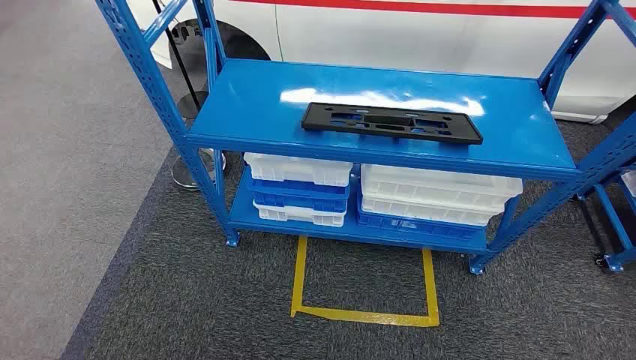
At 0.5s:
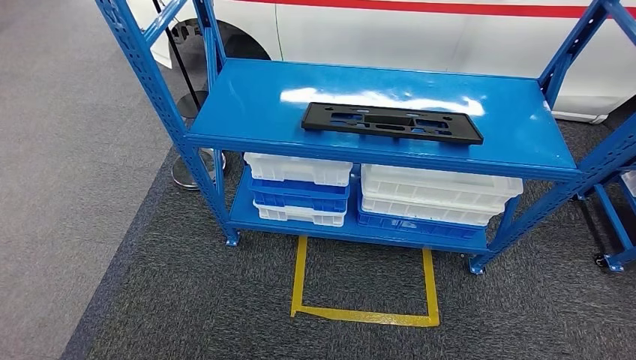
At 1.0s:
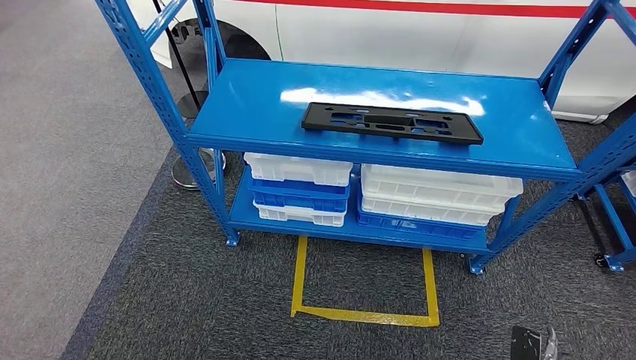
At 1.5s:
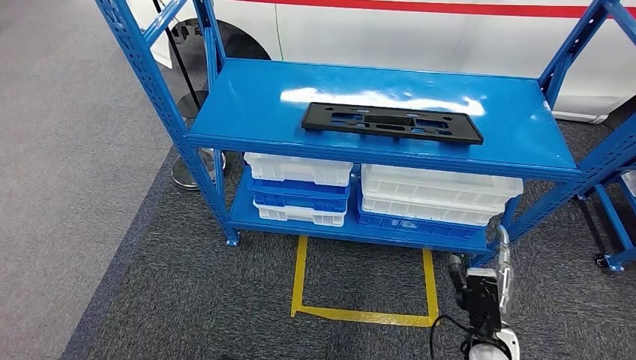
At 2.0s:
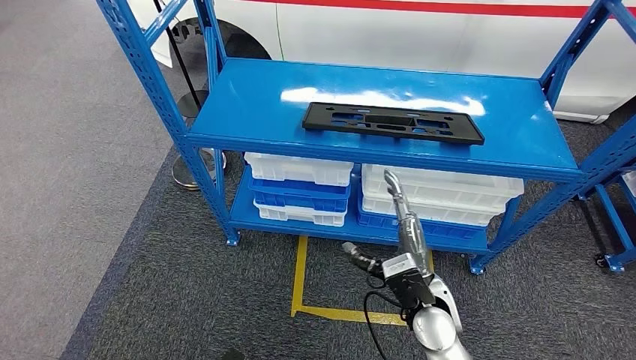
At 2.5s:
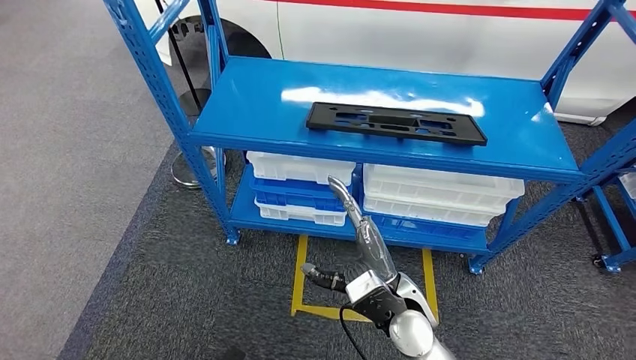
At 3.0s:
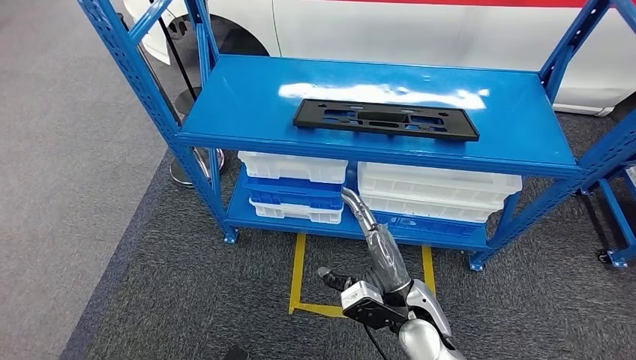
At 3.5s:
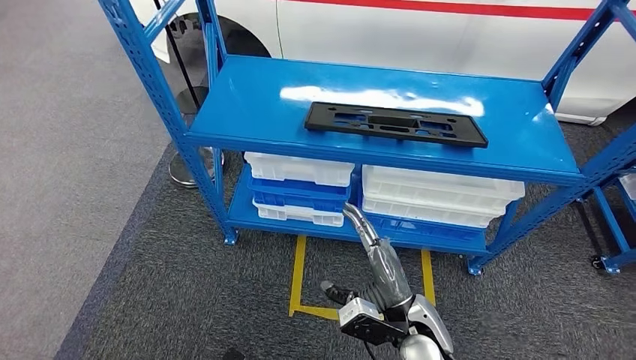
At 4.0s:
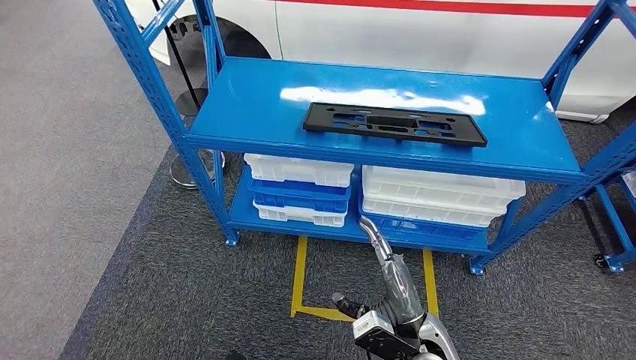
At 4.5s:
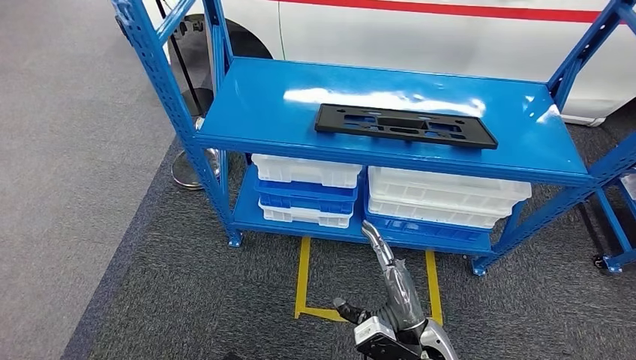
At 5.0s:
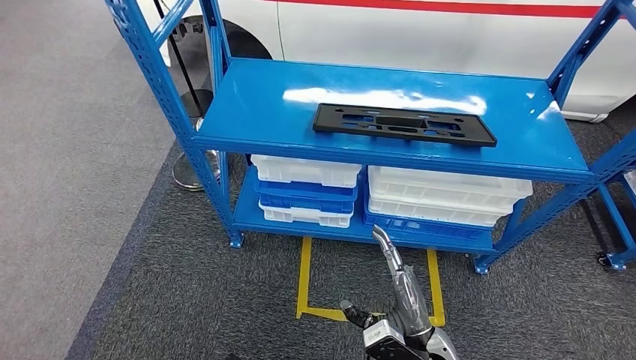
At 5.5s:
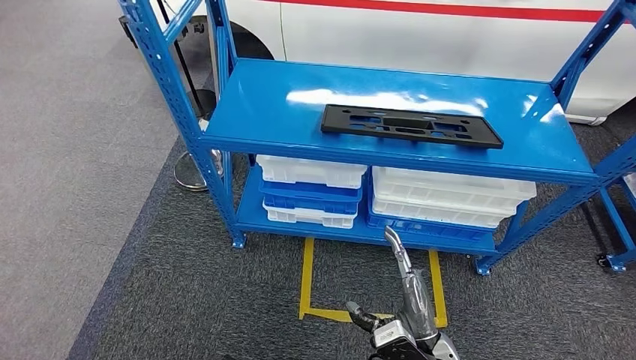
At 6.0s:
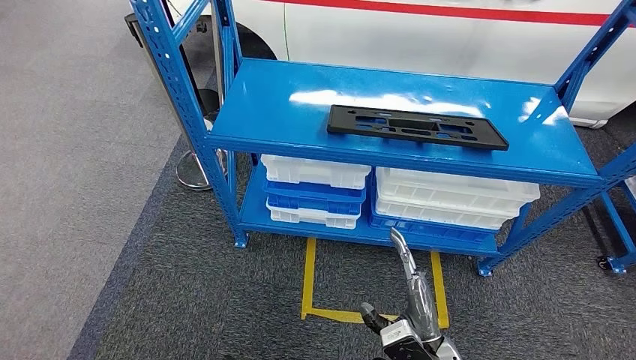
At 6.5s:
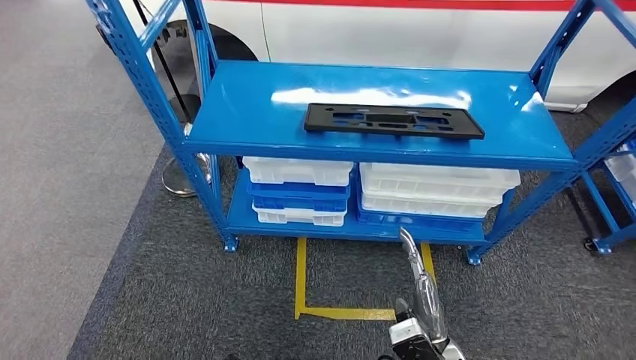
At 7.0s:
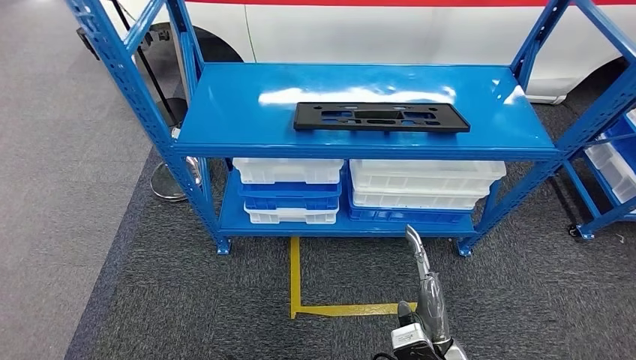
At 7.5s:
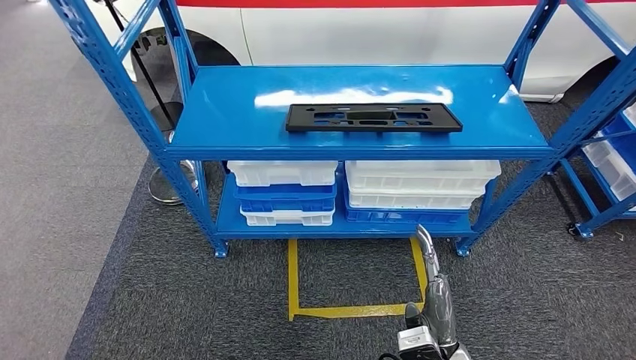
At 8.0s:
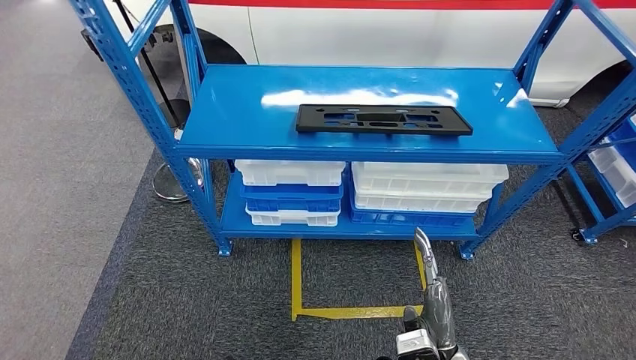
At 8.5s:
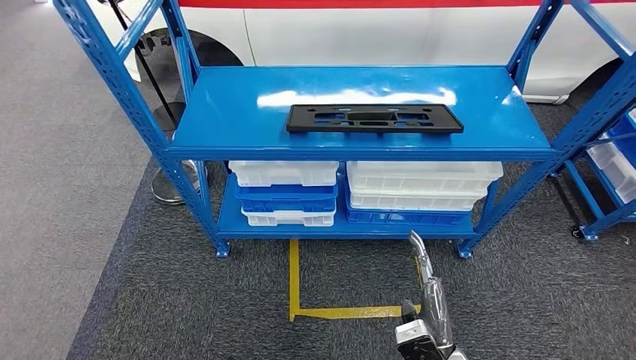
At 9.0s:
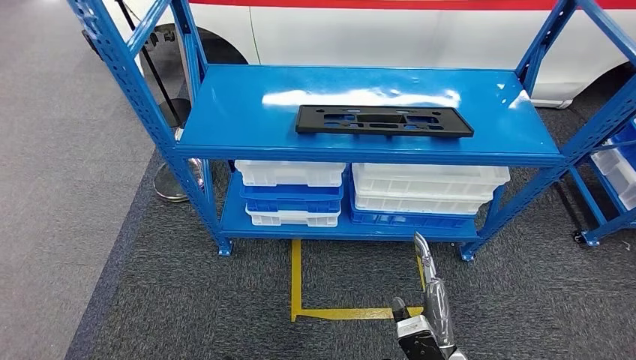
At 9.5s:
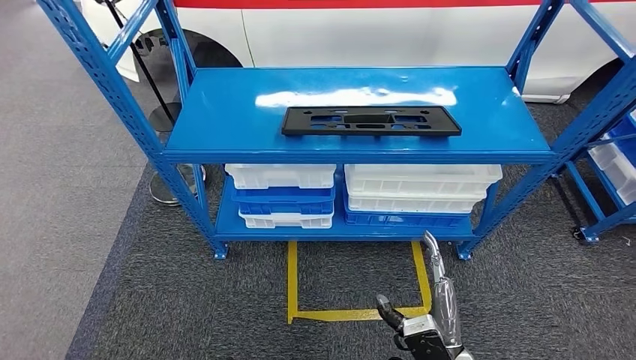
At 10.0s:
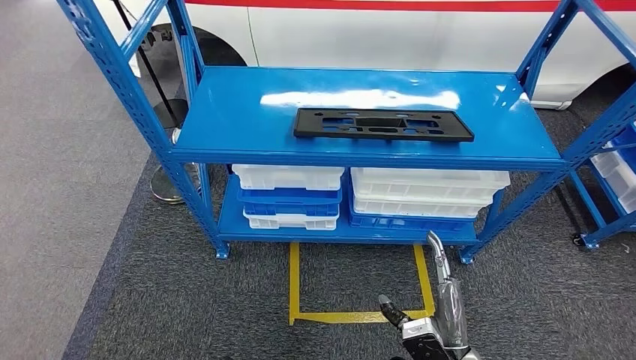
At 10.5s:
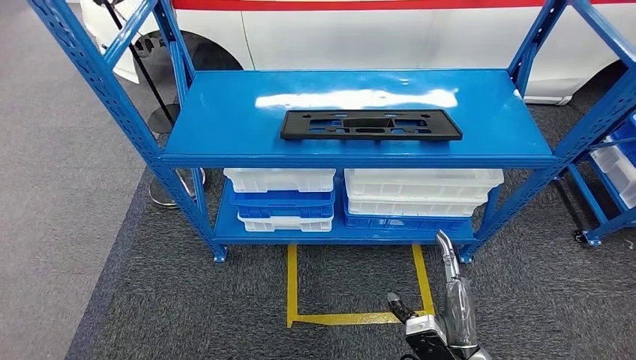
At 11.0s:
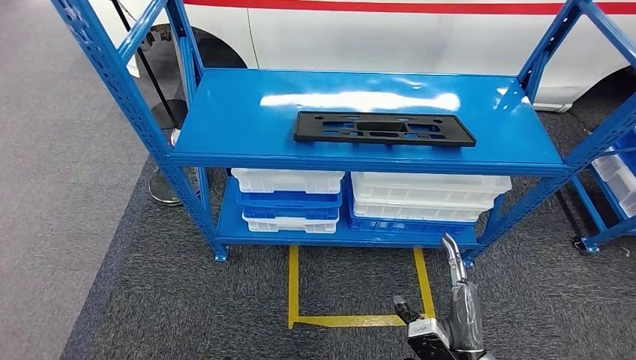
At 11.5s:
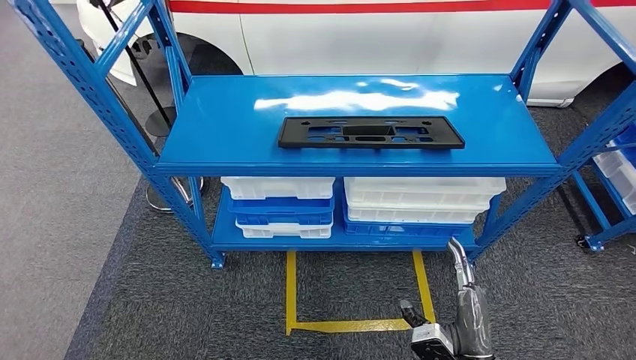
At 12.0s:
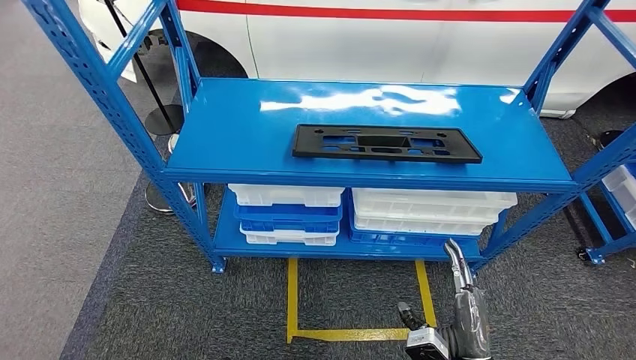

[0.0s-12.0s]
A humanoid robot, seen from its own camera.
2.0s to 4.0s: The right hand moves backward, about 5 cm.
8.0s to 10.0s: There are only small adjustments of the hands.

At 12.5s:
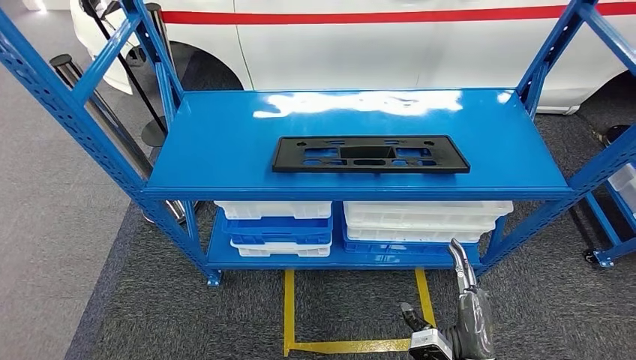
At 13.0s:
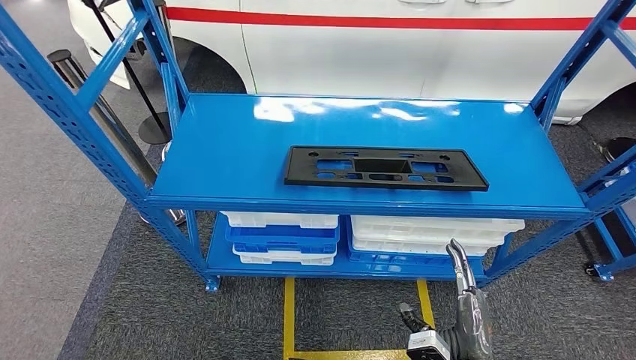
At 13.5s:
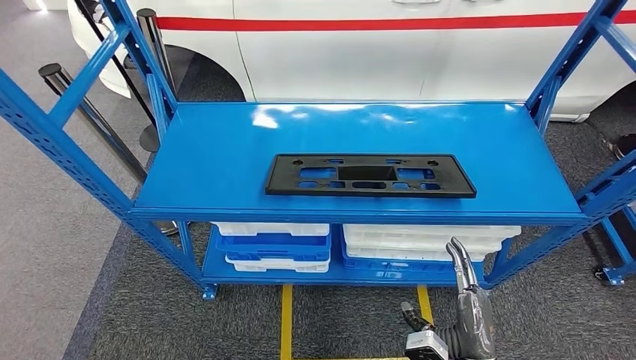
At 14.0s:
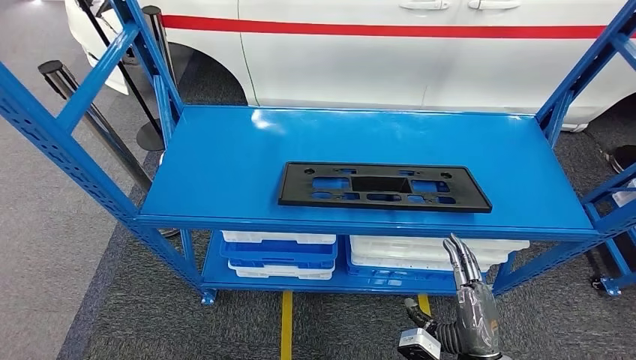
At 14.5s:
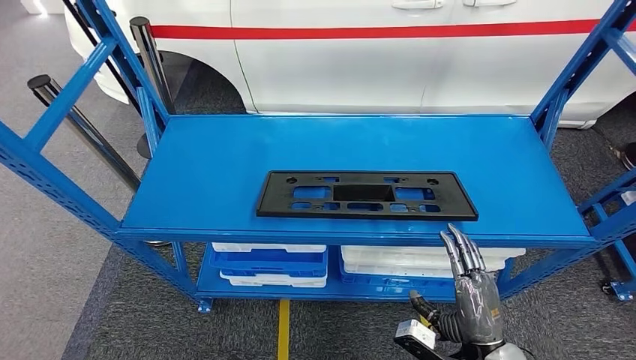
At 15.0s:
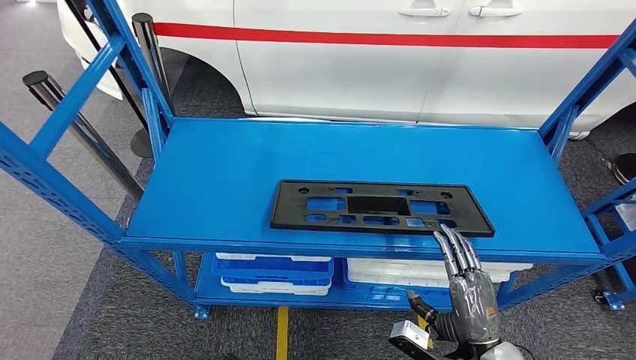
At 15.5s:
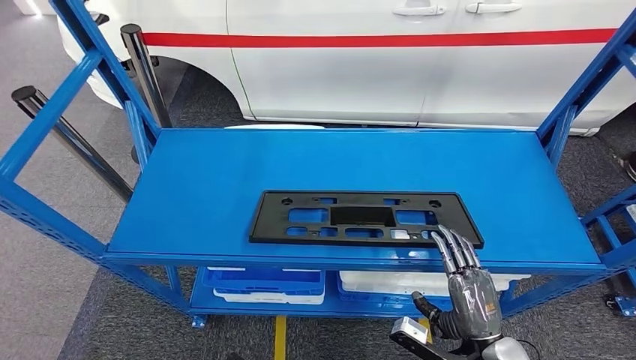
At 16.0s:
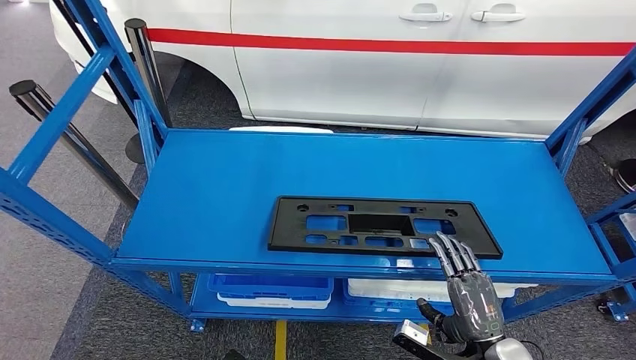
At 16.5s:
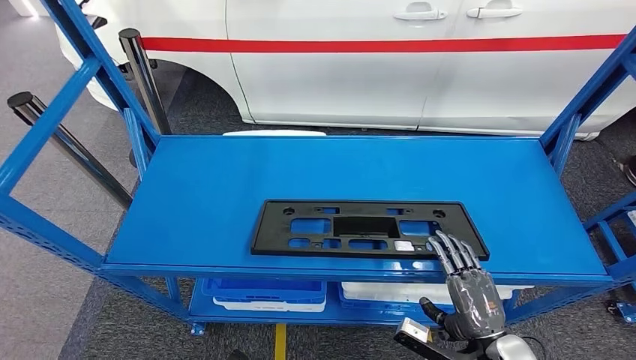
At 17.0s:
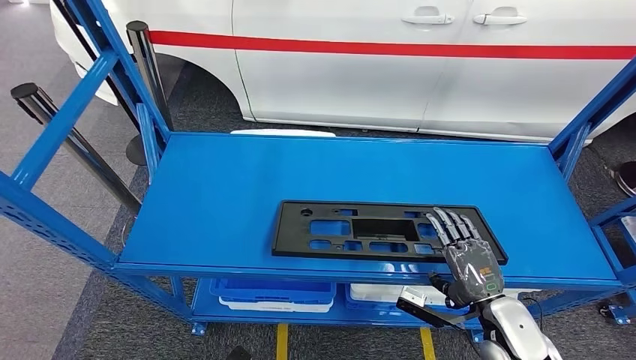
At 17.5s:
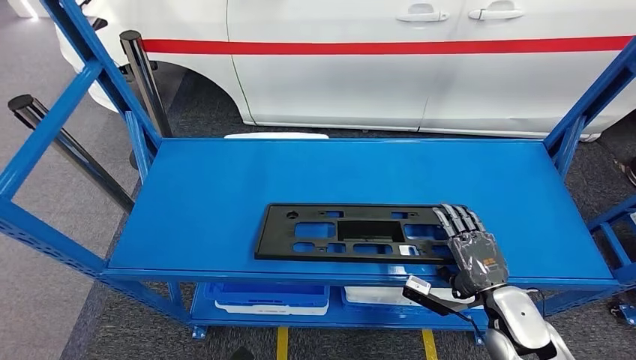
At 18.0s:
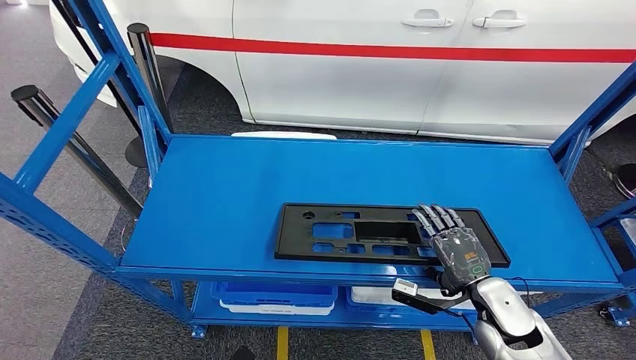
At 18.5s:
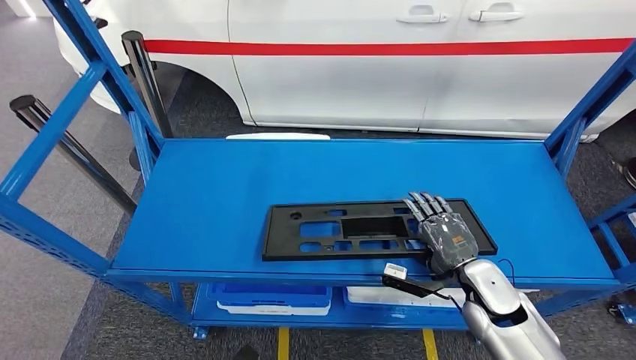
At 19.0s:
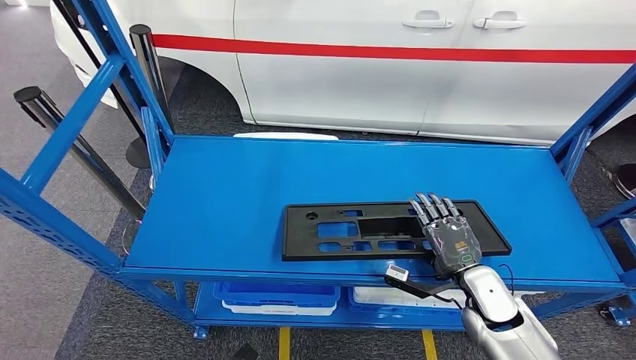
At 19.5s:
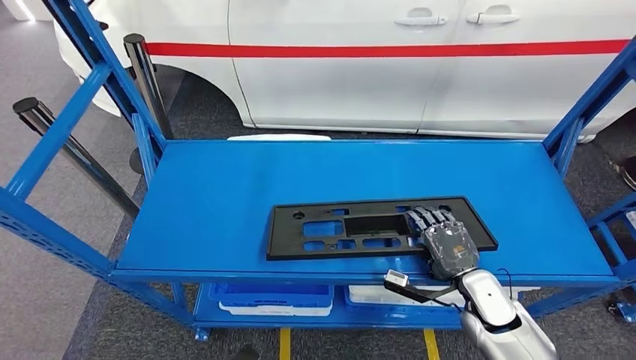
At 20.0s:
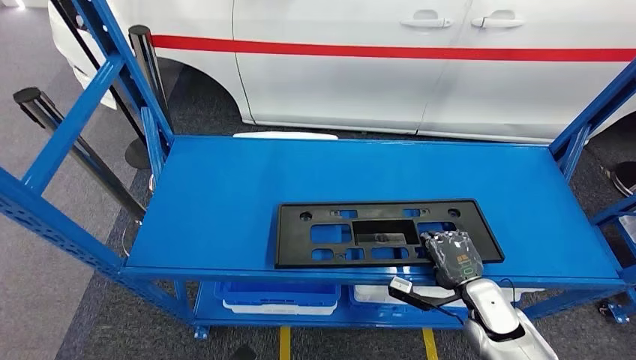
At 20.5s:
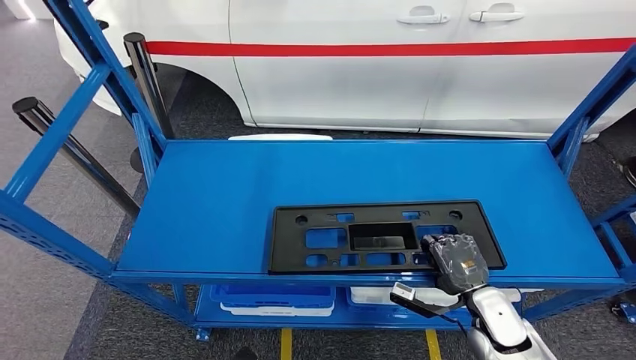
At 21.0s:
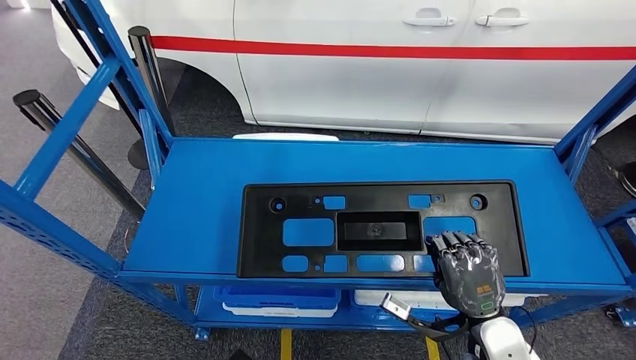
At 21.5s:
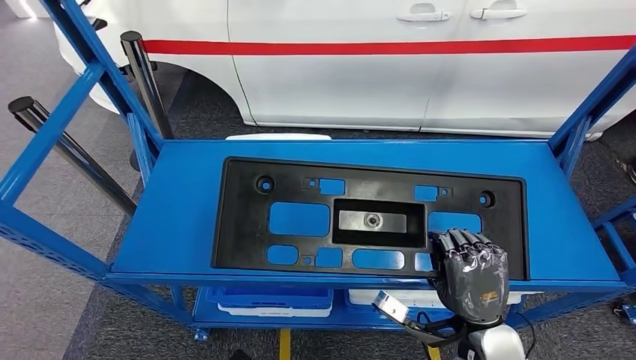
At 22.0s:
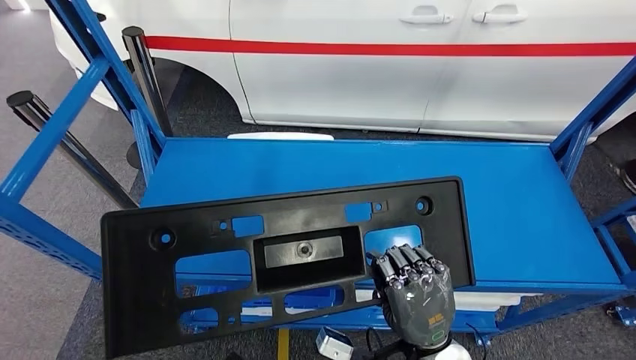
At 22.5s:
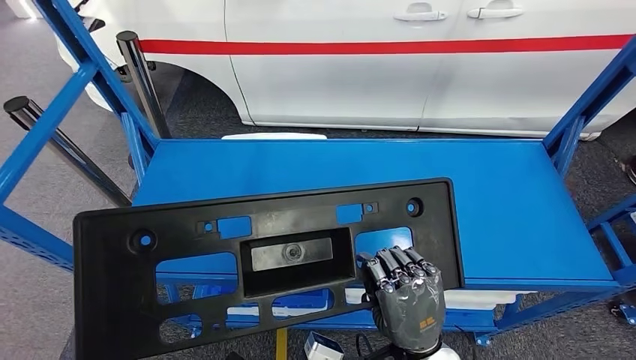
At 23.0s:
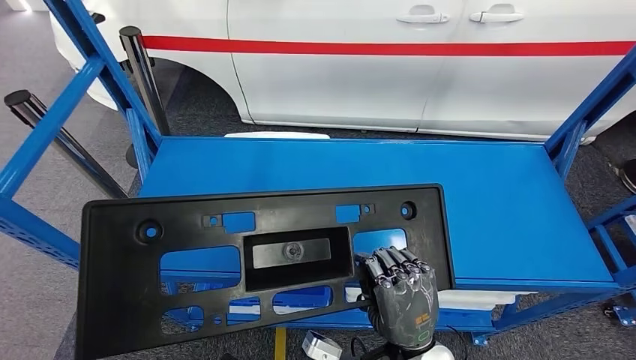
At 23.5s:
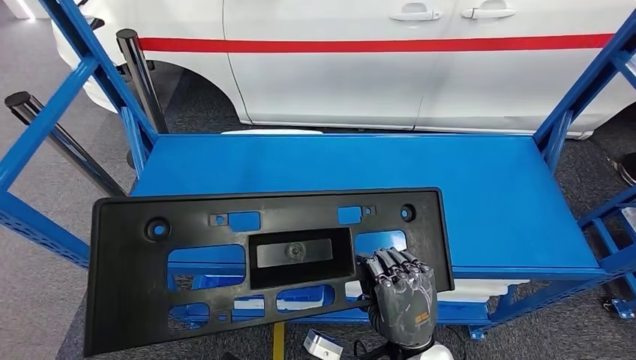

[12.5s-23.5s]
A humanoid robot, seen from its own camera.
Step, 12.5s to 21.0s: Pick up the large material from the shelf.
18.0s to 20.0s: The hands make only small movements.
